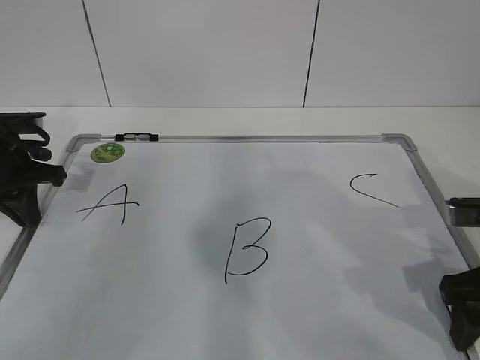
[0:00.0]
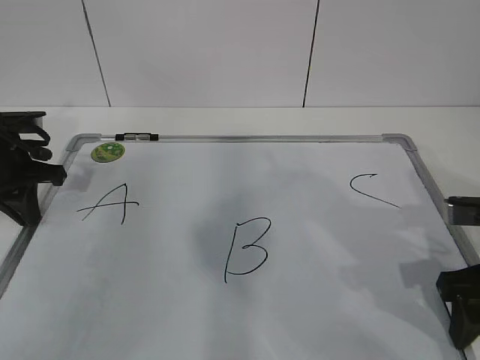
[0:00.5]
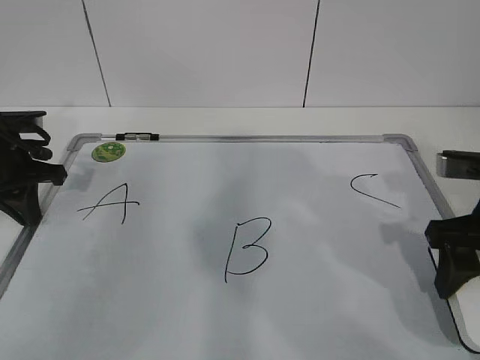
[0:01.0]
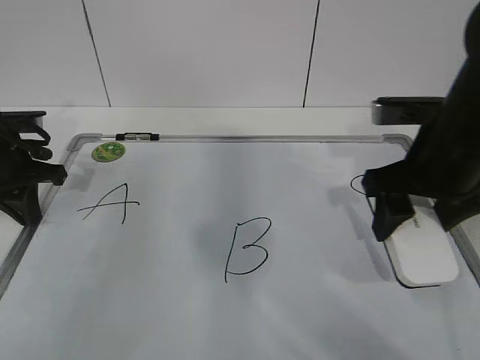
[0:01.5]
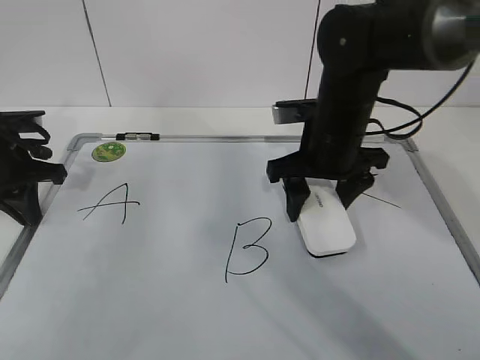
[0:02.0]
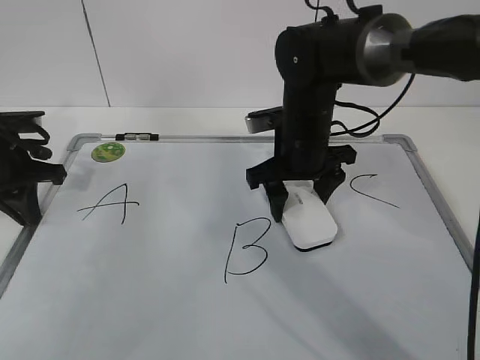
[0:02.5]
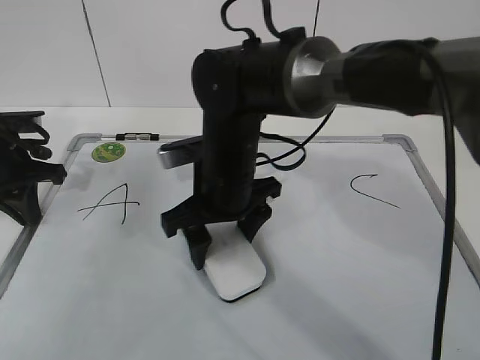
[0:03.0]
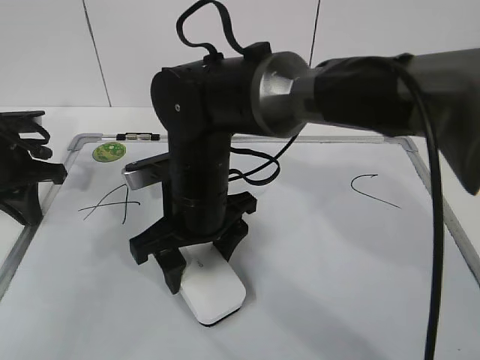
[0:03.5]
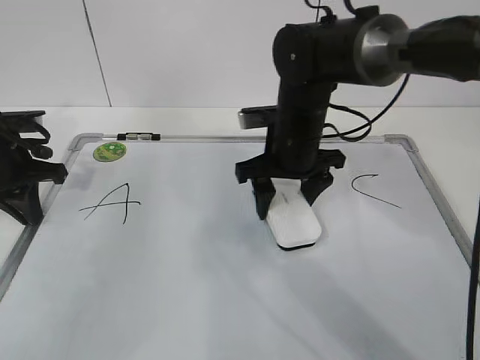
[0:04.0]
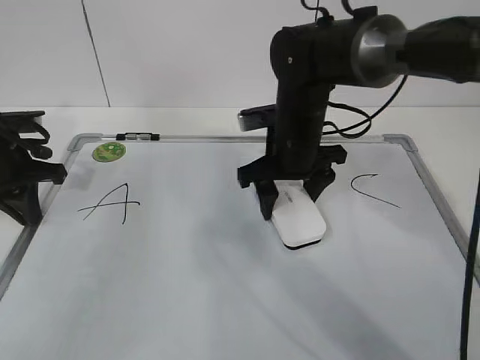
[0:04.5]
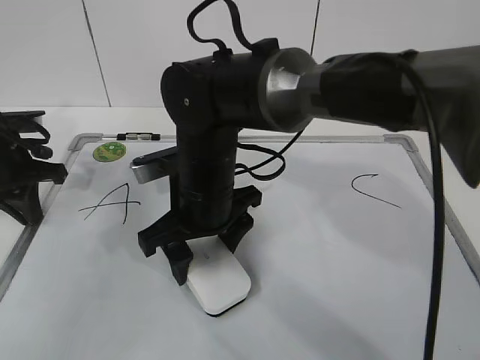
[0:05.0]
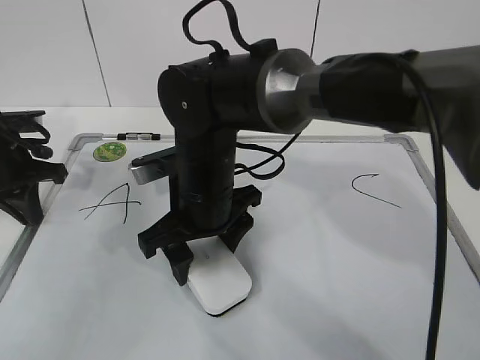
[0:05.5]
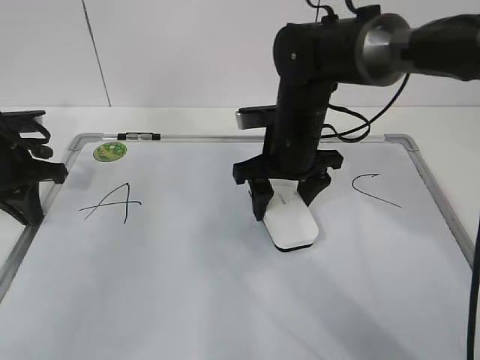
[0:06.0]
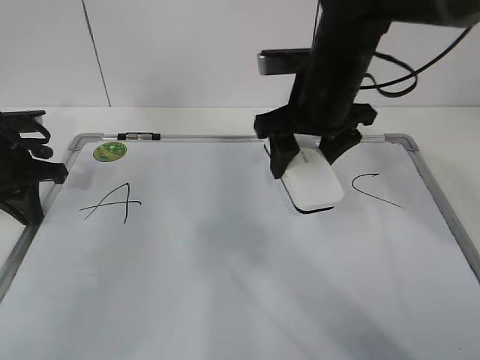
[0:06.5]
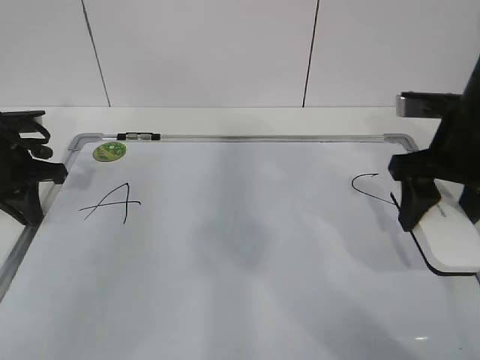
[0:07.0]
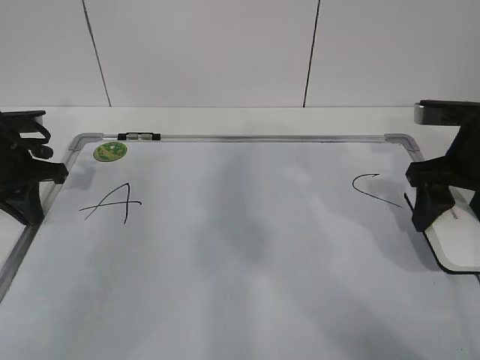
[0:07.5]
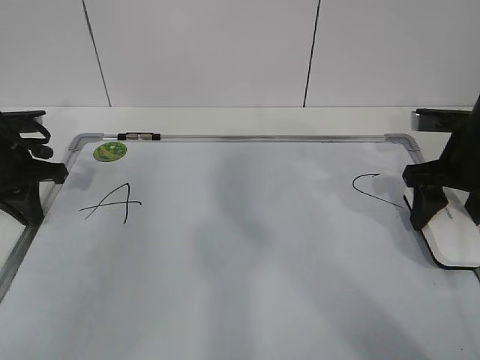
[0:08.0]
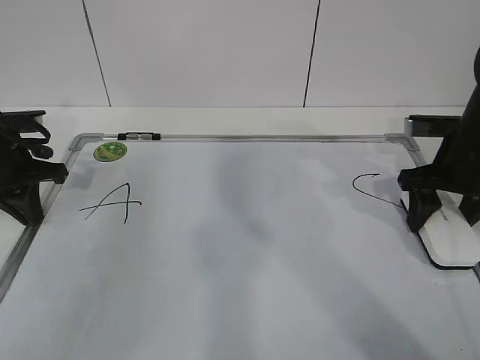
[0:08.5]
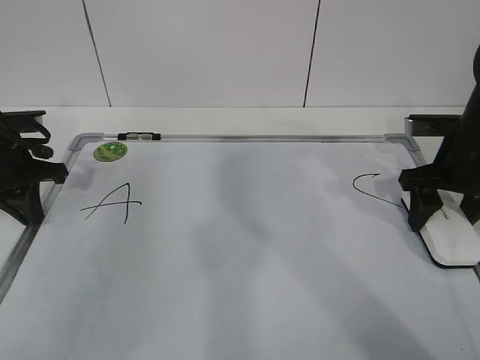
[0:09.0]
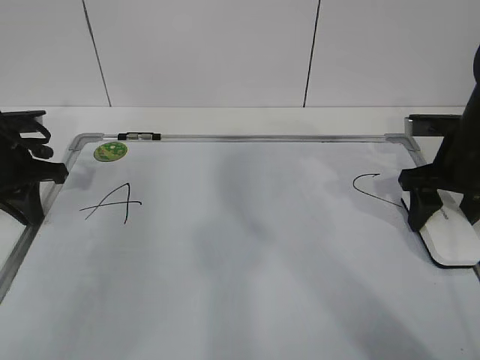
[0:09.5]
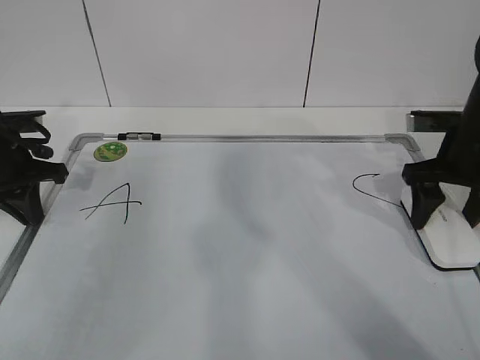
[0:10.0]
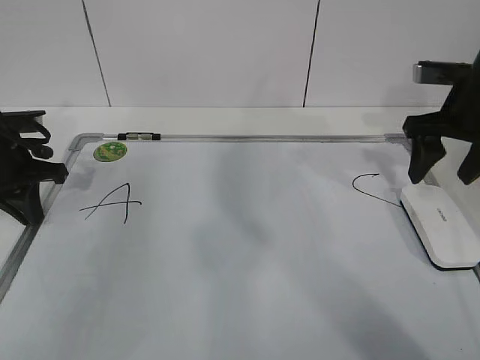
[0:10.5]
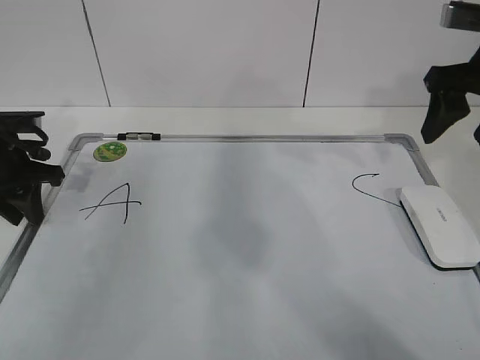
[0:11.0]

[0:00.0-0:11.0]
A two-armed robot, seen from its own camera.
Task of the whole recording: pick up the eraser on the blackboard and erase the letter "B".
Step, 0:00.0 to 0:03.5: Erase the letter B with your right hand.
Step, 0:04.0 to 0:06.5: Put down the eraser with your right hand.
0:00.0 to 0:02.0: The right gripper travels to the left and forward by some 20 cm, and closes up.
0:02.0 to 0:03.5: The right gripper goes some 15 cm to the left.
0:03.5 to 0:05.5: The right gripper travels to the right and back again, approximately 10 cm each way.
0:05.5 to 0:07.5: The right gripper heads to the right, covering about 30 cm.
0:07.5 to 0:09.0: The right gripper ends up roughly 5 cm from where it was.
0:09.0 to 0:11.0: The left gripper opens. The right gripper heads upward, covering approximately 10 cm, and opens.

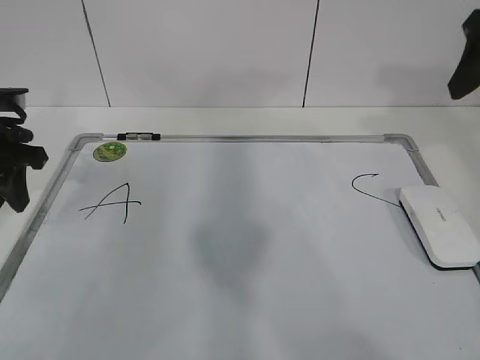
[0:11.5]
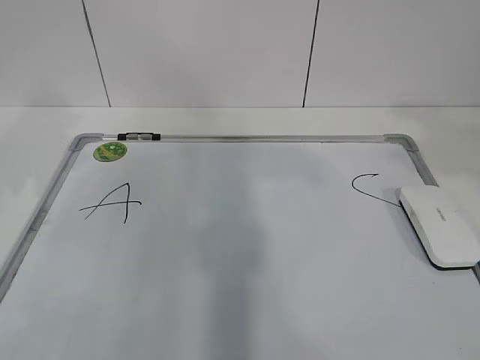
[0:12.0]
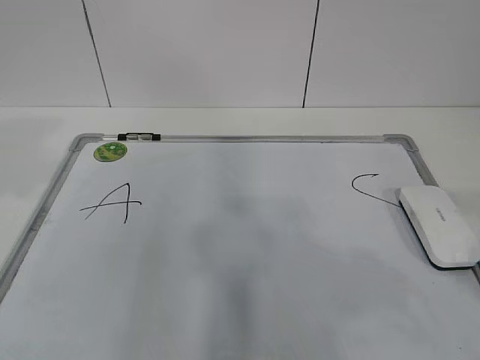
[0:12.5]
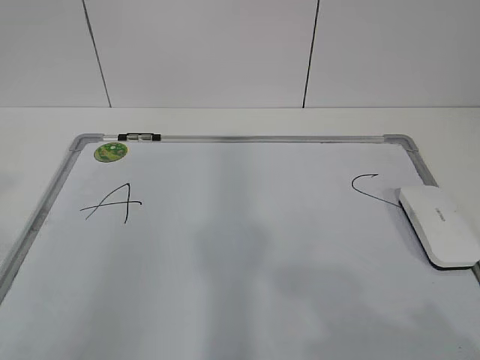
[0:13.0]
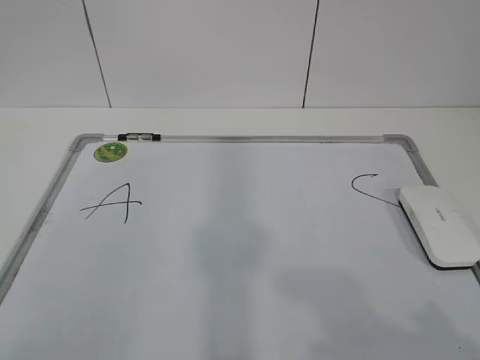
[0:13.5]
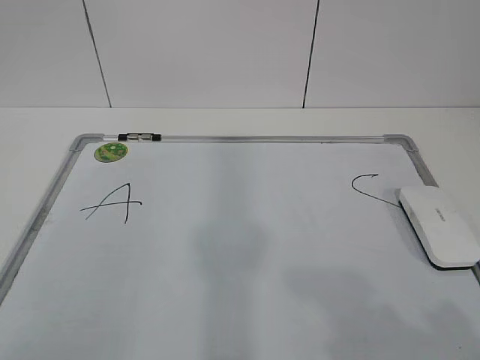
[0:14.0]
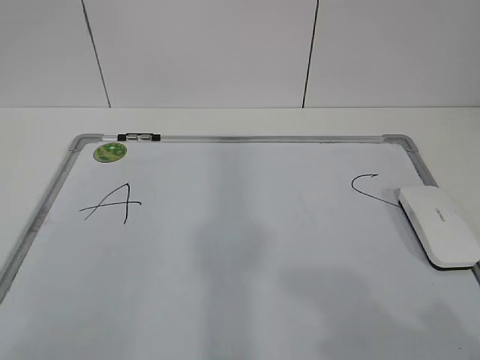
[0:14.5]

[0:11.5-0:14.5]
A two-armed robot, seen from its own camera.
Task of the whole recording: pick up the eraser on the blackboard and erase the letter "B".
0:11.5 to 0:13.0: The right gripper goes approximately 30 cm backward, while the left gripper travels backward and upward by approximately 30 cm.

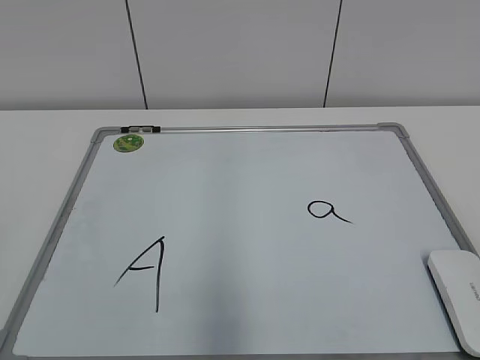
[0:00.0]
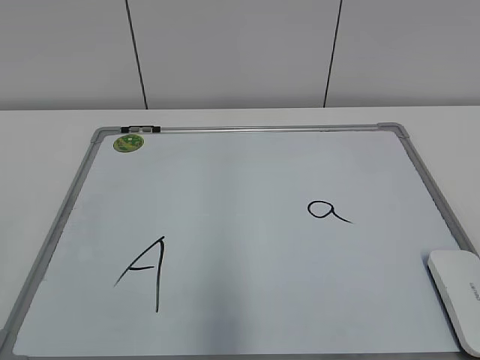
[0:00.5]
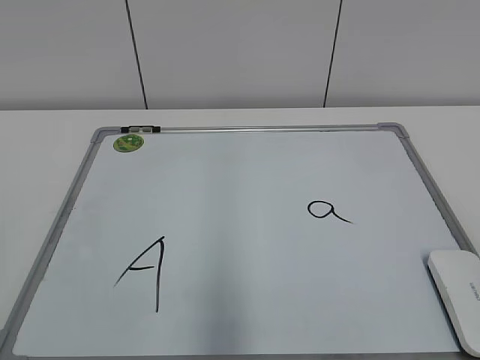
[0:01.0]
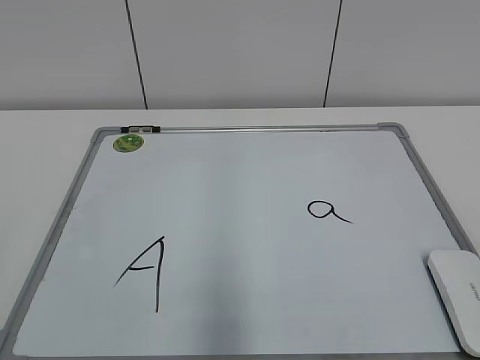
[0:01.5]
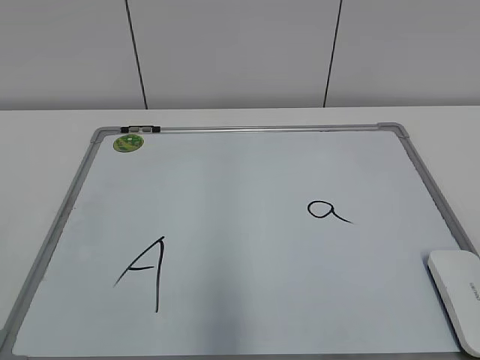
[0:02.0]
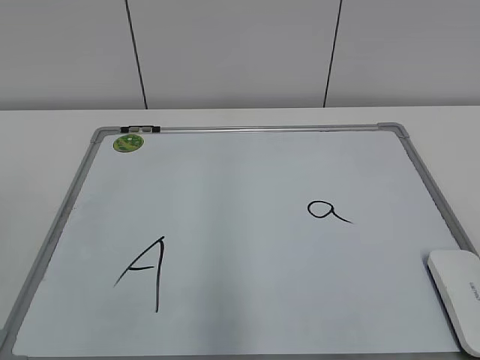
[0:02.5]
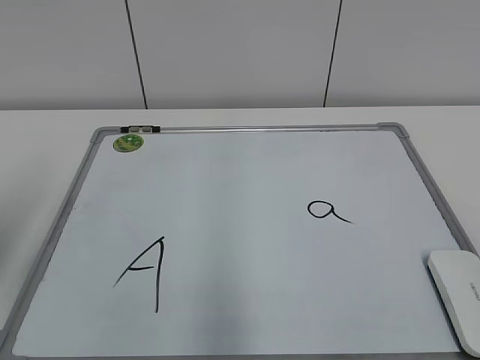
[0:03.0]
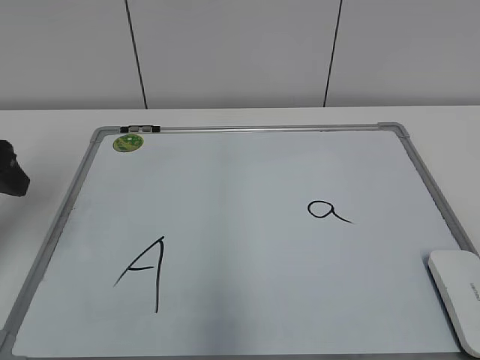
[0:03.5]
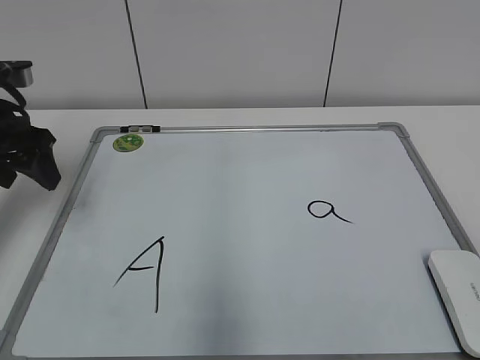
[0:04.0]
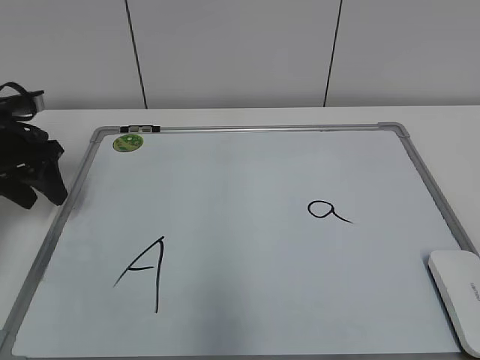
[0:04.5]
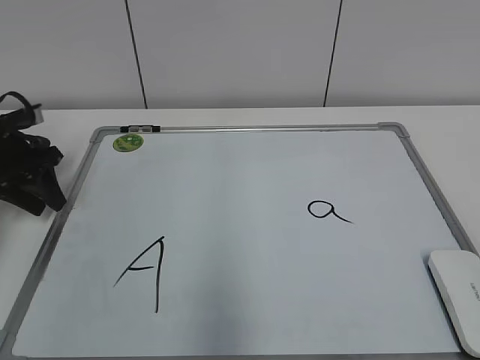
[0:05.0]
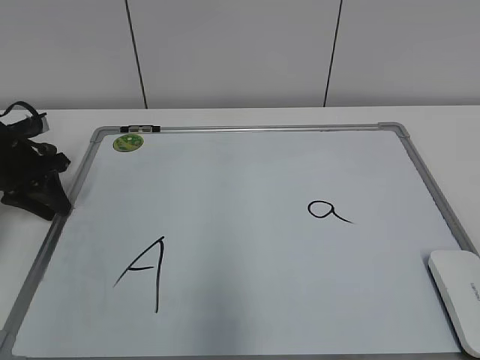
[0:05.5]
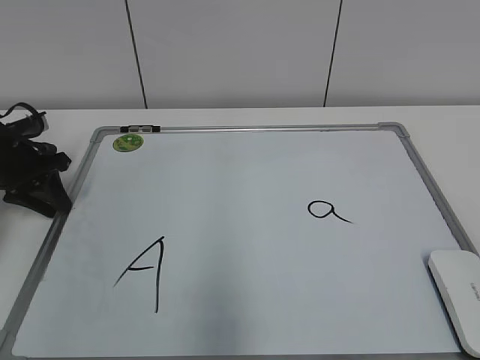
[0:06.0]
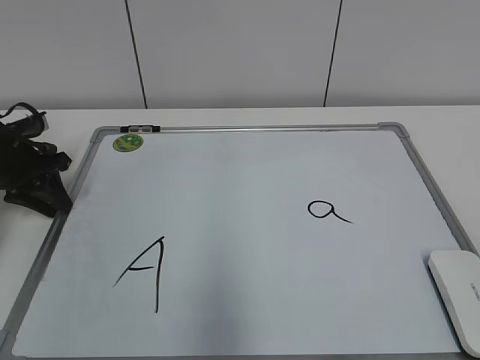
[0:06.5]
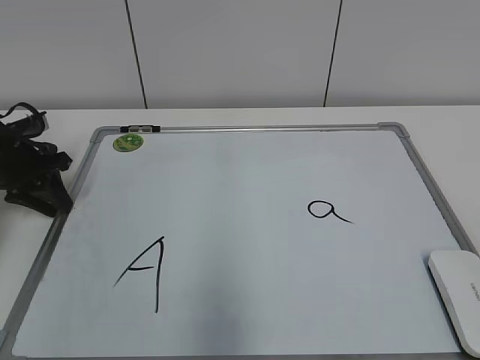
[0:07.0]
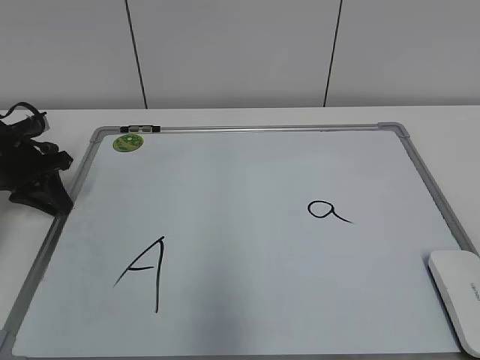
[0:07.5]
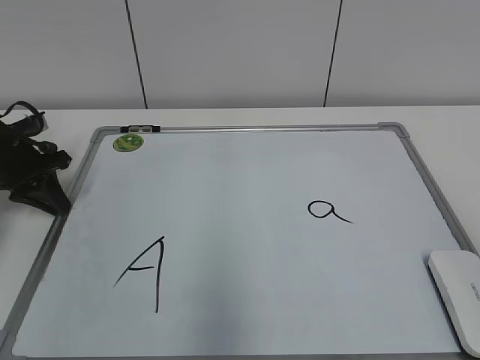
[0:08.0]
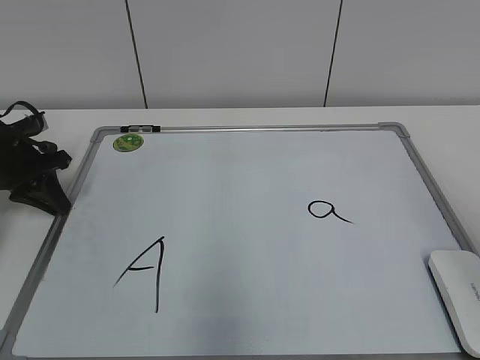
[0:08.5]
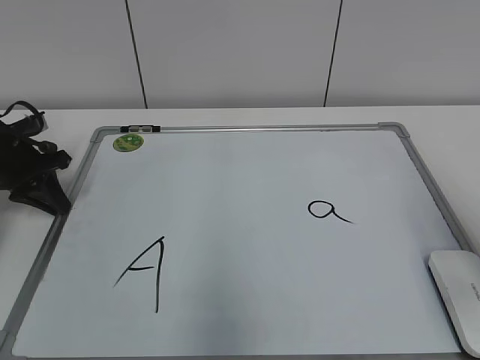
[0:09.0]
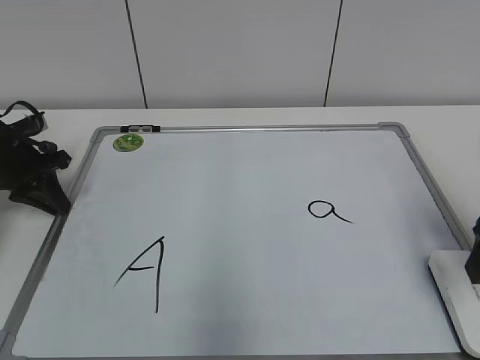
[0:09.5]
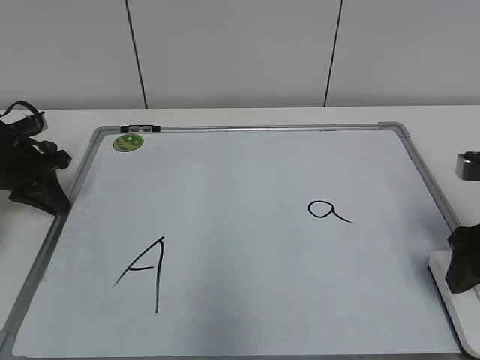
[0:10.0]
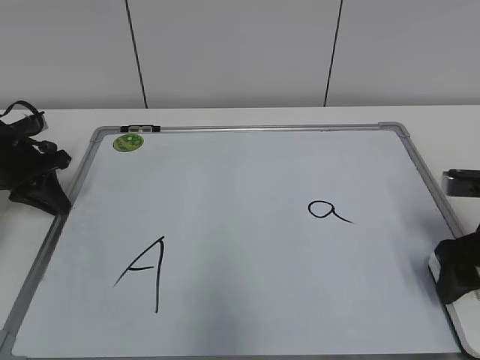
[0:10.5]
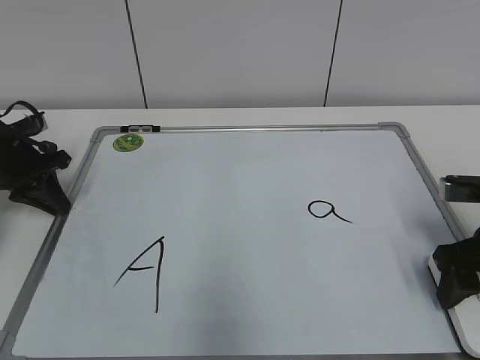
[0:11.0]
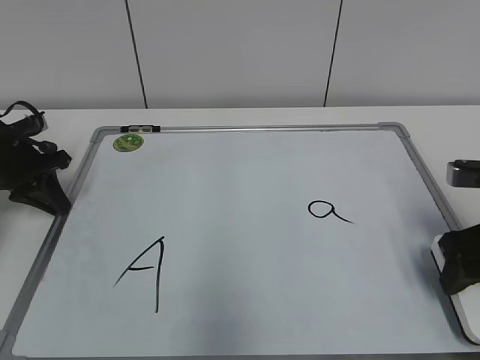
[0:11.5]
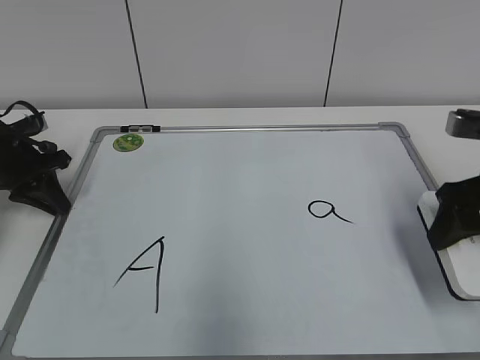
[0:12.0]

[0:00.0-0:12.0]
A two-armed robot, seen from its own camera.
Task of the whole recording: pick up the eraser on the blackboard and erase the letter "a".
Step, 0:00.0 to 0:07.5: Hold the drawing board steady with your left hand.
Step, 0:08.0 to 0:11.0: Grab the eraser with your right hand.
0:02.0 to 0:04.0: The left gripper is displaced forward by about 35 cm.
0:04.0 to 0:06.0: The left gripper is displaced downward and forward by roughly 10 cm, and closes.
0:08.0 to 0:10.0: The right gripper moves forward and downward, roughly 25 cm.
0:10.0 to 0:12.0: The right gripper closes up.
